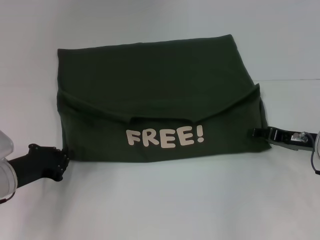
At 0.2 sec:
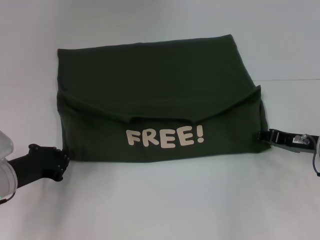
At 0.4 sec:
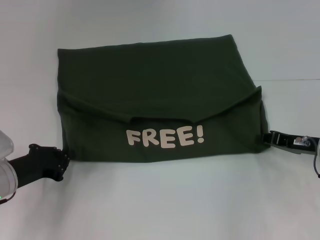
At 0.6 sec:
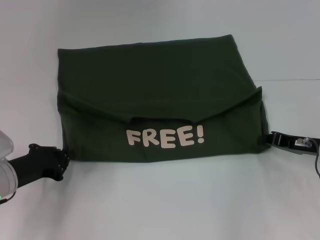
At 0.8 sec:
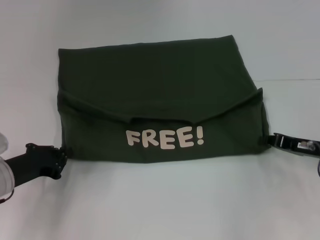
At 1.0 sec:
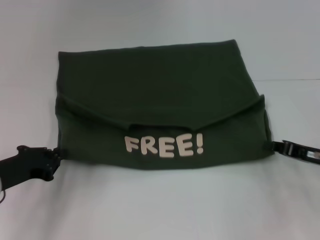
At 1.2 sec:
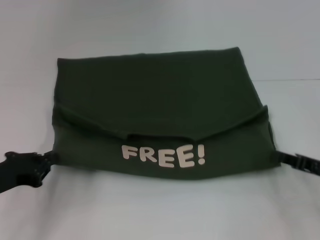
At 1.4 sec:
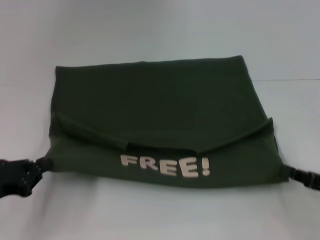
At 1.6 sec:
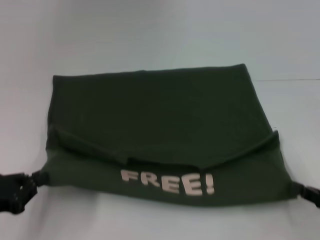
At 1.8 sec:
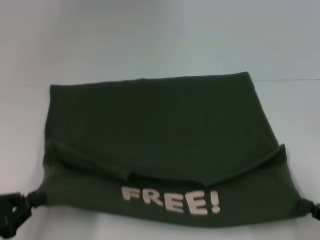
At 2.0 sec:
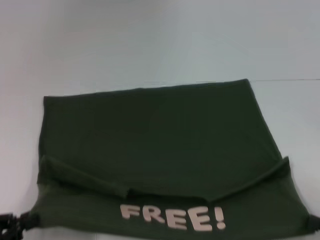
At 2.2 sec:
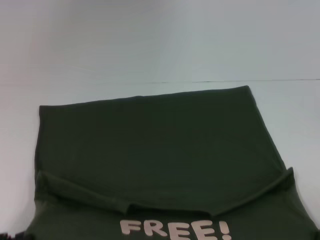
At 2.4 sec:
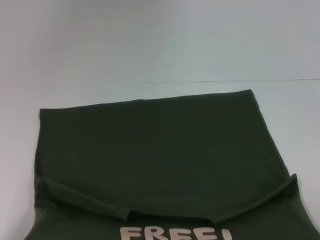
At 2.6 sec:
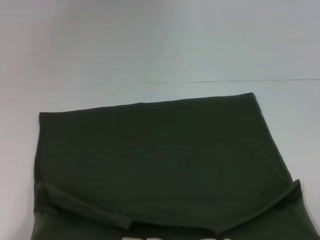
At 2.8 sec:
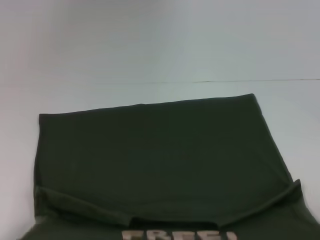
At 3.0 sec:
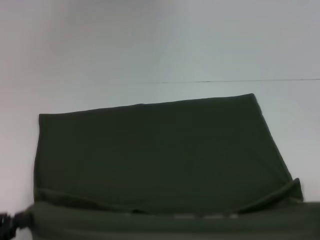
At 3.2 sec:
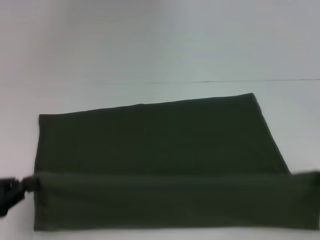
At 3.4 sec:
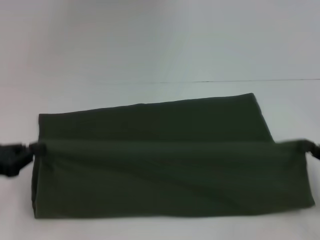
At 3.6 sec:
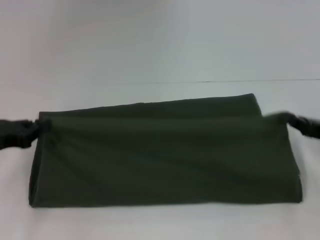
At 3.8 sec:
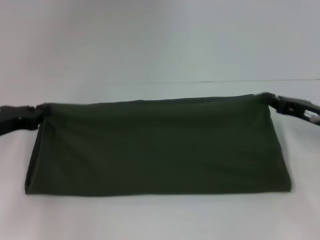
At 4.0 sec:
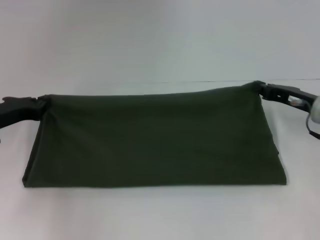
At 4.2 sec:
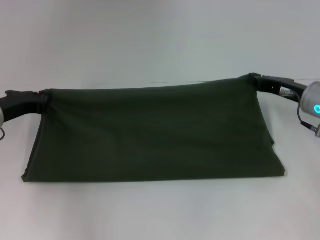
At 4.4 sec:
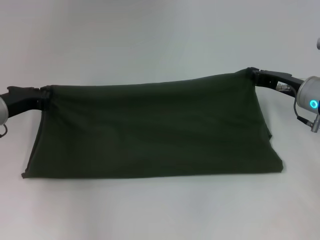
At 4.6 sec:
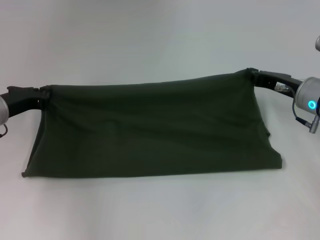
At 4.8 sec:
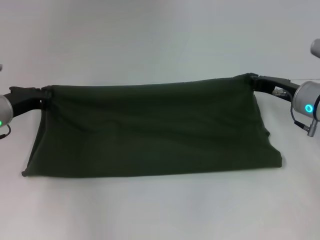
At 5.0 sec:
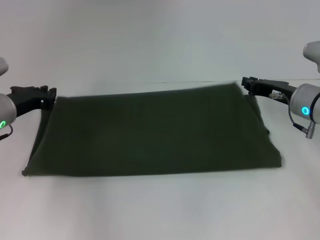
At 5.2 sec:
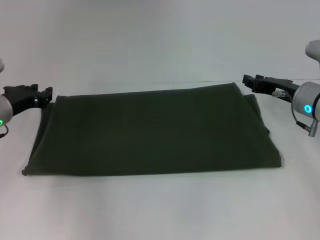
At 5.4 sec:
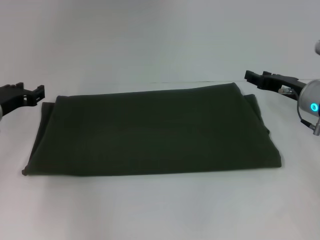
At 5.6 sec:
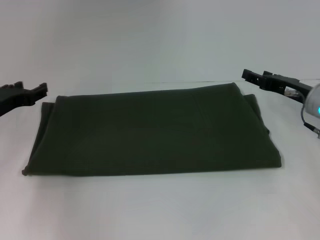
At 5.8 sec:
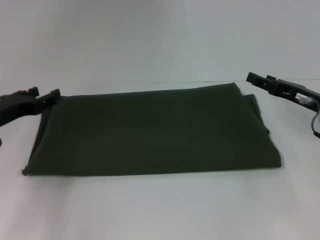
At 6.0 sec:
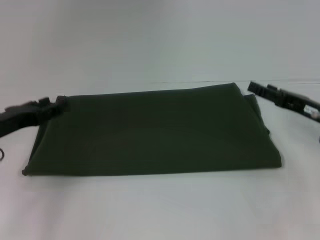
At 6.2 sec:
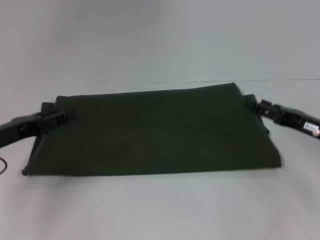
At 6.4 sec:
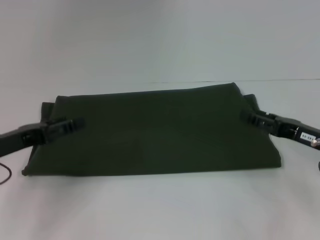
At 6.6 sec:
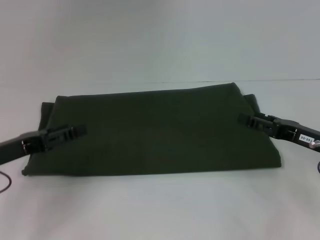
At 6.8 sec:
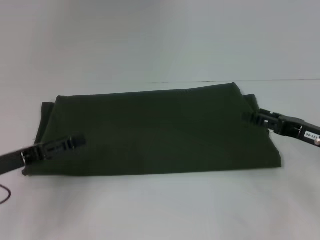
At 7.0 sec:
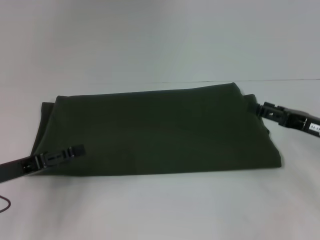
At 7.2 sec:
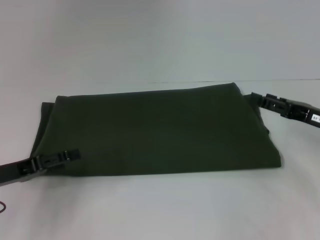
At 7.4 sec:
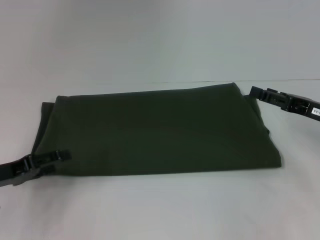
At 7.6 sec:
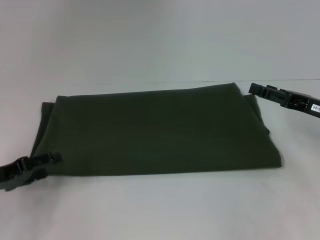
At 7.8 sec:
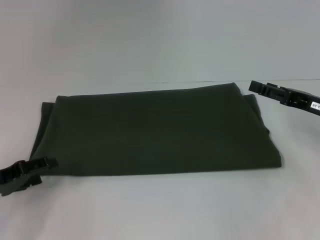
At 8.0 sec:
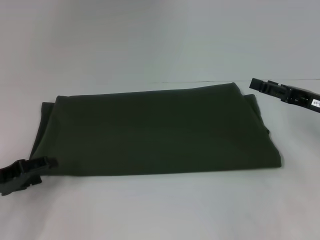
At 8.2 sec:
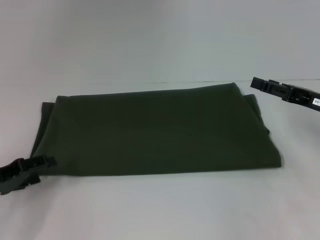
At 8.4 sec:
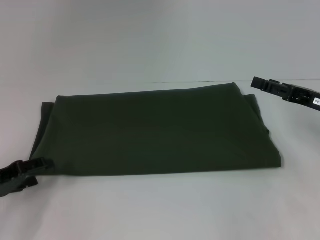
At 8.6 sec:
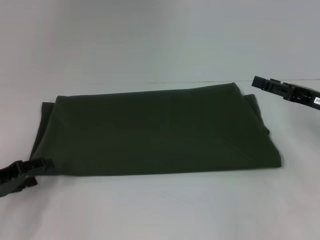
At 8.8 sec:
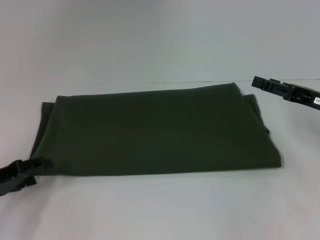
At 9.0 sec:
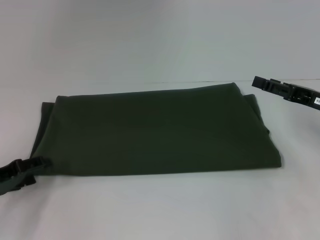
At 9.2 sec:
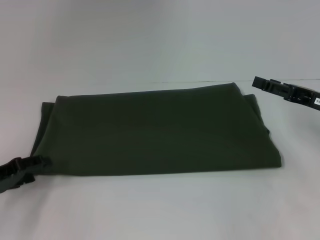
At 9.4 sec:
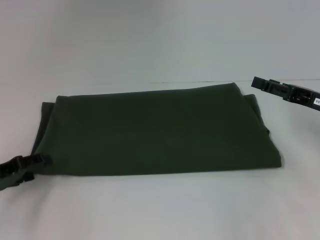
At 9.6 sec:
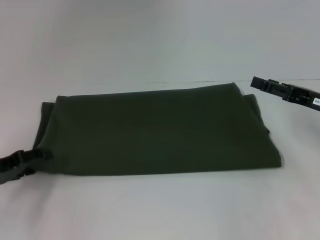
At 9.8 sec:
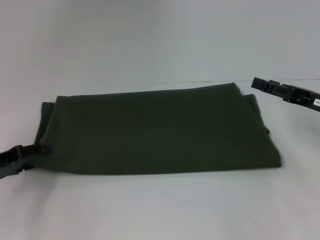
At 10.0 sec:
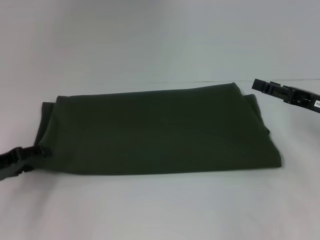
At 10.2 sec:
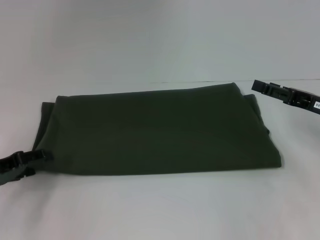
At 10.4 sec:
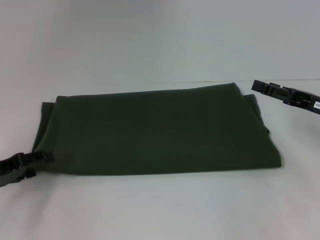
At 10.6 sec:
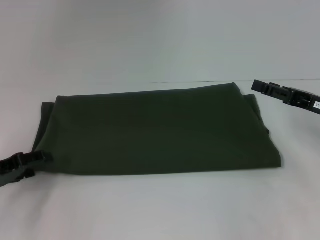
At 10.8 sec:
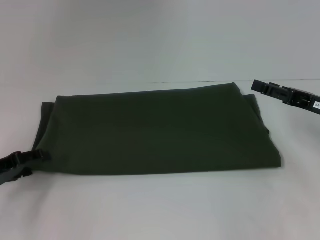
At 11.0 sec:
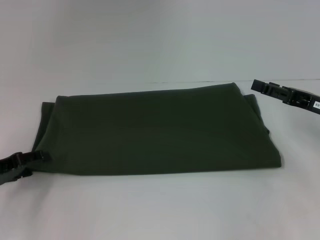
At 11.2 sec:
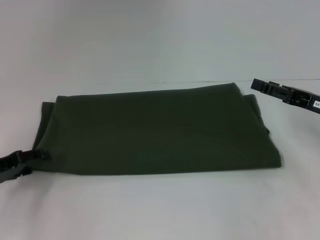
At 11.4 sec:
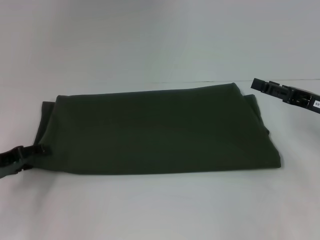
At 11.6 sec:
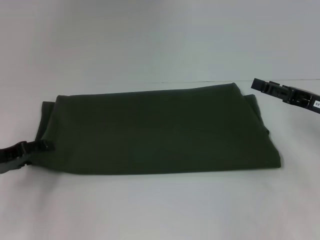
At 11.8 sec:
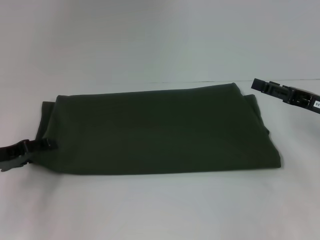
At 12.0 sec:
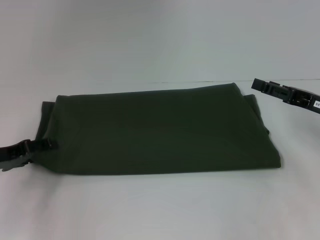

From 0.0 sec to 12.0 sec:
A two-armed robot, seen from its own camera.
Step, from 2.0 sec to 5.4 sec: Fold the clothes with your right hand.
From 0.0 sec to 1.6 sec: The left gripper is displaced backward and to the left by about 10 cm. Meanwhile the right gripper moves backward and to the right, about 15 cm, and closes its fingers.
From 1.6 sec to 3.0 sec: The two grippers go about 5 cm backward.
From 3.0 sec to 4.4 sec: The left gripper moves forward, about 25 cm, while the right gripper heads forward and to the left, covering roughly 30 cm.
From 4.4 sec to 6.0 sec: Both grippers travel together backward, about 5 cm. The left gripper opens its fingers; the right gripper opens its fingers.
From 6.0 sec to 7.6 sec: The left gripper changes place by some 5 cm.
From 7.6 sec to 12.0 sec: The grippers stay close to where they were, moving slightly.

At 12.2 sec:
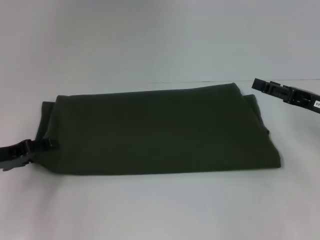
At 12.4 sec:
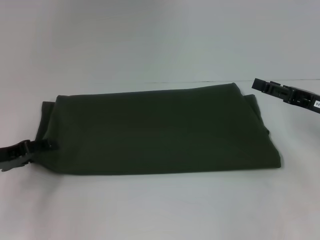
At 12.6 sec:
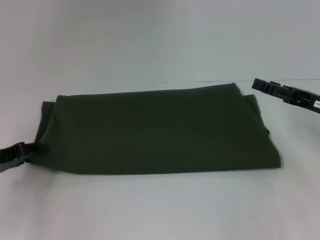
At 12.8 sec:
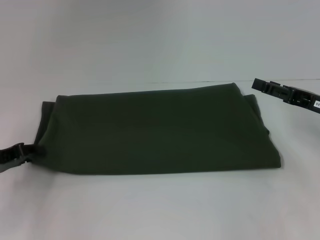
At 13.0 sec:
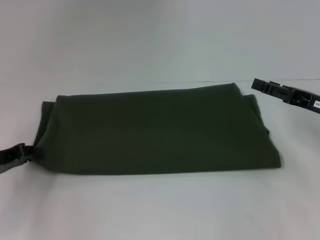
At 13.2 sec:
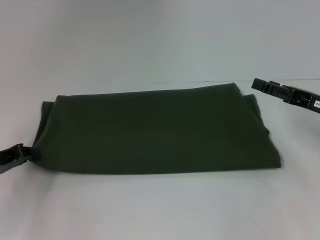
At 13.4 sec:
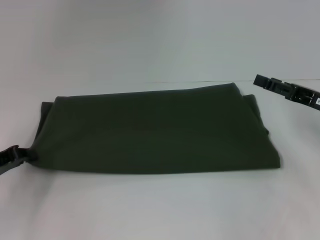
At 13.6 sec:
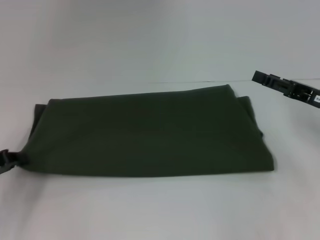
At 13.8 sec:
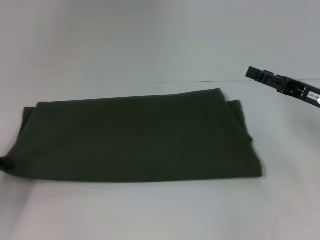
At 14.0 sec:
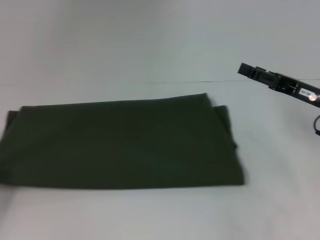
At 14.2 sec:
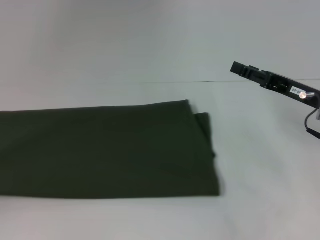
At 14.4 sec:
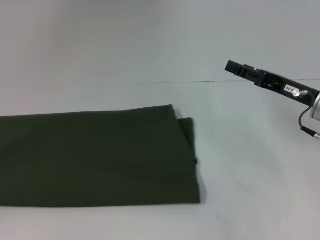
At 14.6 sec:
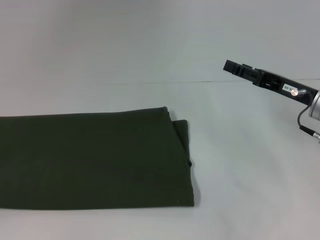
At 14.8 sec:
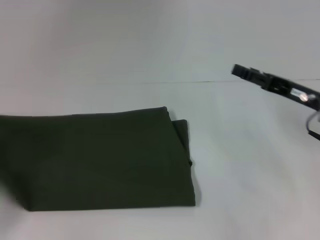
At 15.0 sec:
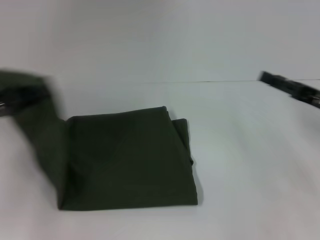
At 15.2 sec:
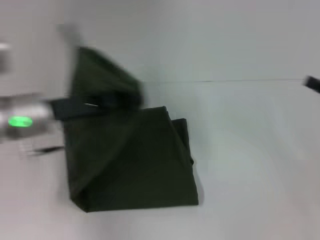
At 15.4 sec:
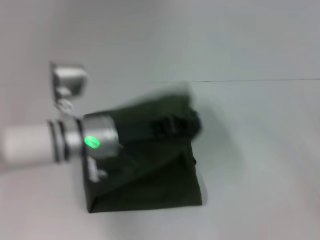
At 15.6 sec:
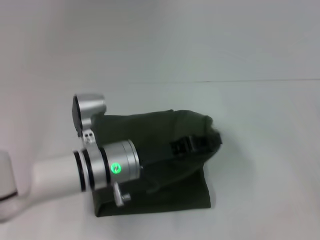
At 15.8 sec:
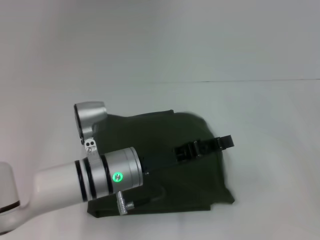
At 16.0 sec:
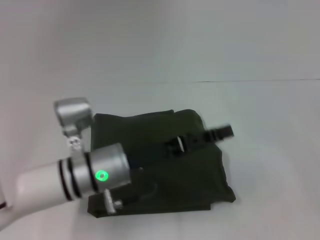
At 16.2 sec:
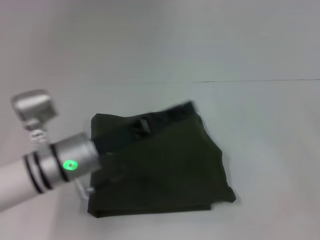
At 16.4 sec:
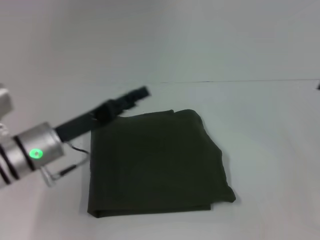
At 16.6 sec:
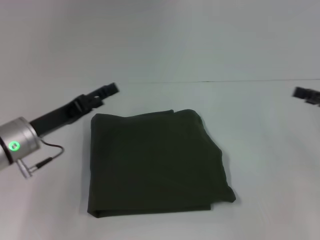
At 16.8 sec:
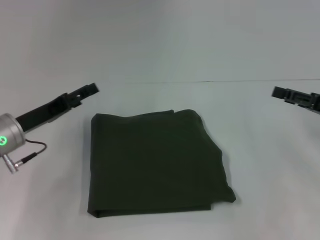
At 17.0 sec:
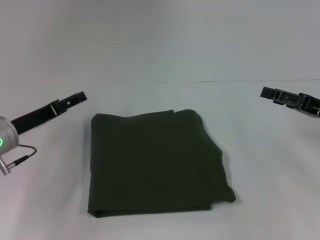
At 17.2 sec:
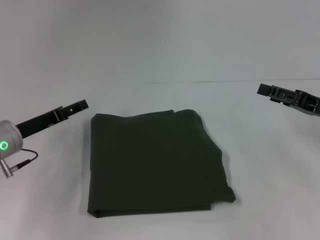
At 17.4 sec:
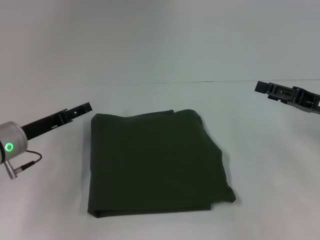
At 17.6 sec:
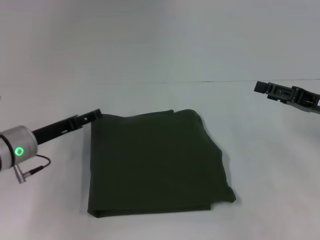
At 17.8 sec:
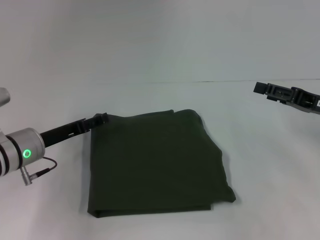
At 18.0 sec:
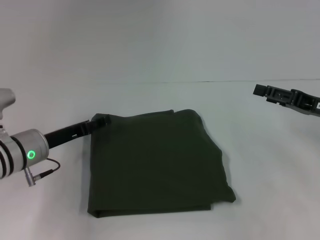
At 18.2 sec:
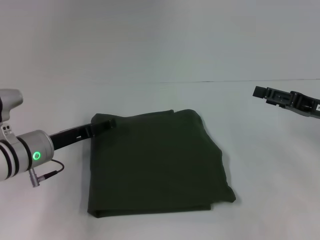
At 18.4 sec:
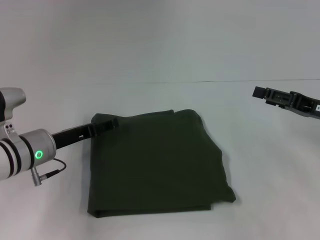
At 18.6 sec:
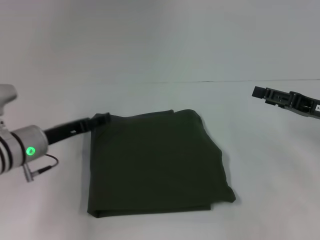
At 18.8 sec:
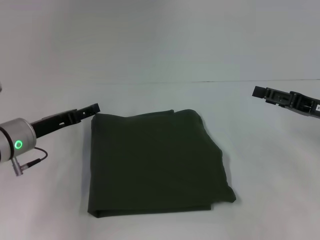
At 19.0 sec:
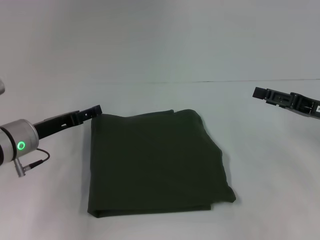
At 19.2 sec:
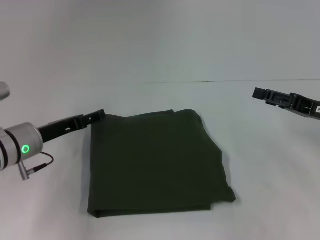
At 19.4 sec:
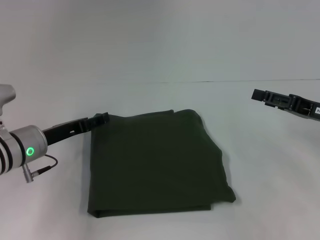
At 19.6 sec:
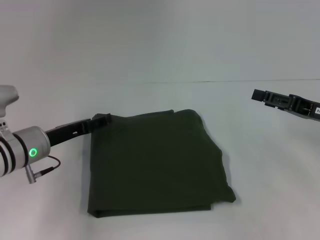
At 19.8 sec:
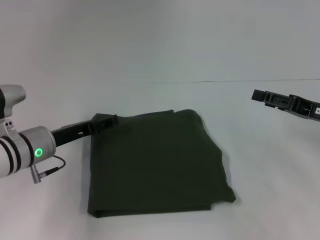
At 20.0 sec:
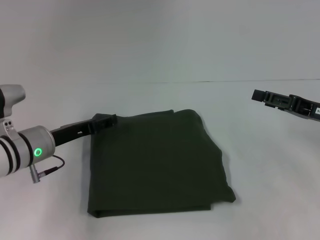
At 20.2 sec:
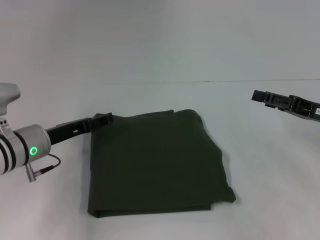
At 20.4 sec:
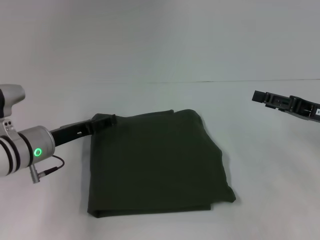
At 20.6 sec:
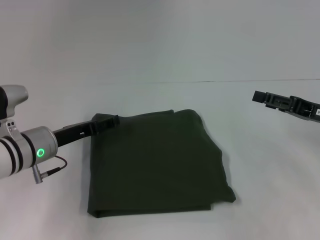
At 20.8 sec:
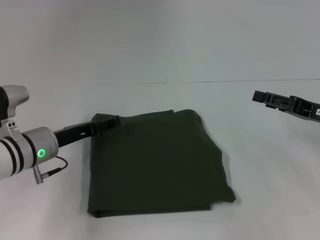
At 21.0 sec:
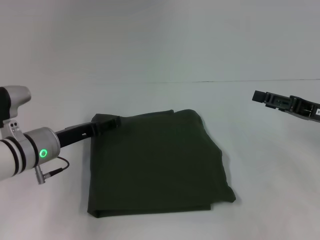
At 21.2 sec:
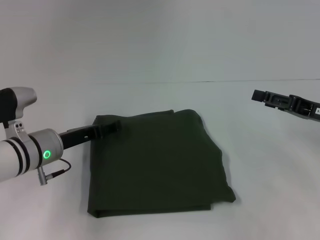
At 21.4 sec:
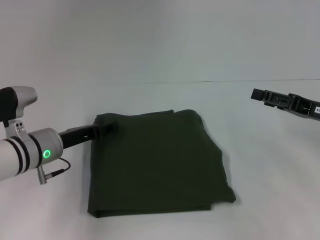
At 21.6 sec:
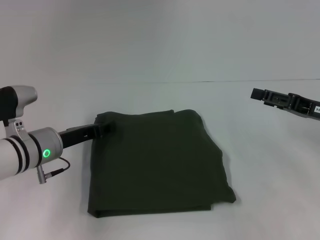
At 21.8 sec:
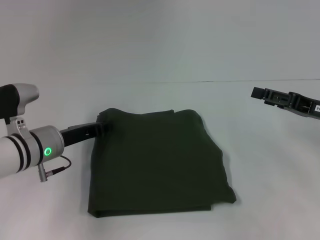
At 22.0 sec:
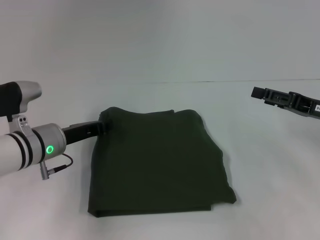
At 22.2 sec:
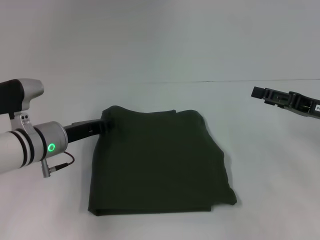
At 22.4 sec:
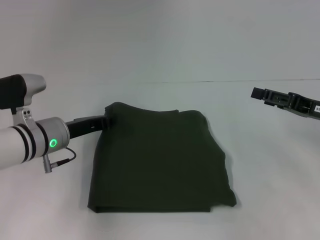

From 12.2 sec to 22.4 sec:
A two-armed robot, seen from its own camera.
Step, from 12.2 sec to 16.8 sec: Fold the clothes with your left hand.
From 12.2 sec to 13.6 sec: The left gripper closes its fingers.
From 13.6 sec to 15.2 sec: The right gripper shifts some 5 cm to the right. Meanwhile the left gripper shifts roughly 15 cm to the right and upward.
From 15.2 sec to 16.6 sec: The left gripper travels downward by about 5 cm, reaches about 10 cm to the right, then returns, and opens.
From 16.6 sec to 18.0 sec: The right gripper goes approximately 5 cm to the left.
From 18.0 sec to 21.0 sec: There are only small adjustments of the grippers.
From 21.0 sec to 22.4 sec: The left gripper closes.
